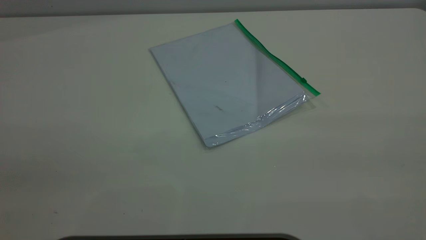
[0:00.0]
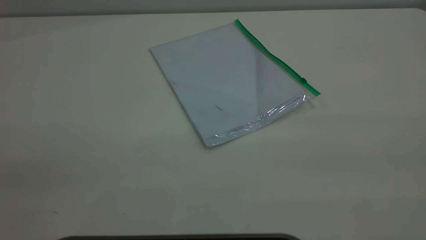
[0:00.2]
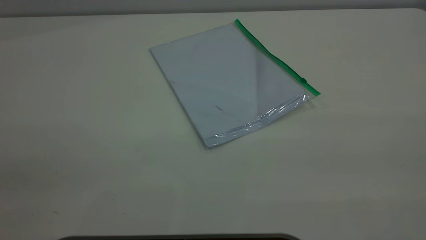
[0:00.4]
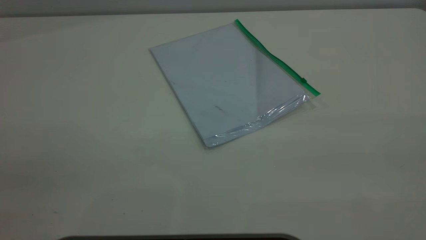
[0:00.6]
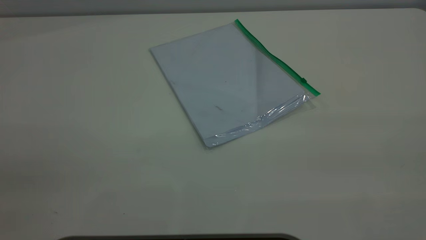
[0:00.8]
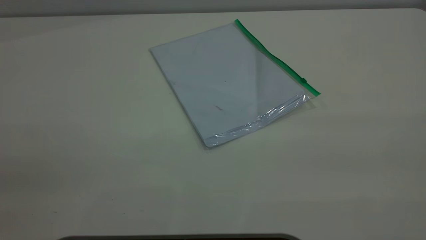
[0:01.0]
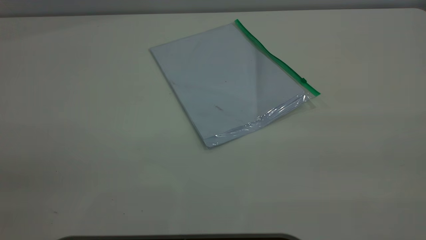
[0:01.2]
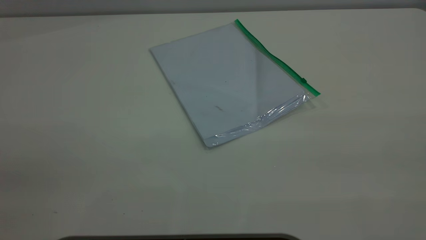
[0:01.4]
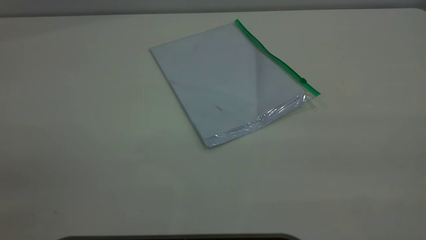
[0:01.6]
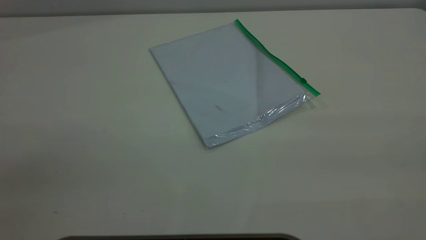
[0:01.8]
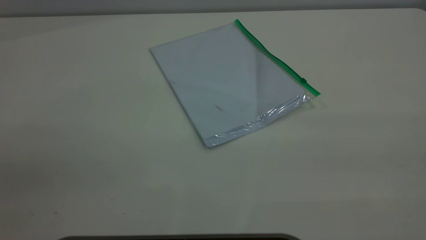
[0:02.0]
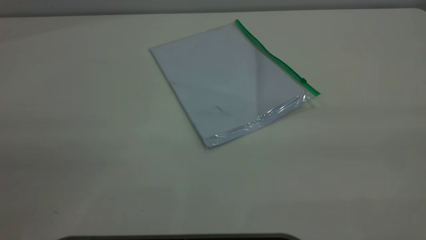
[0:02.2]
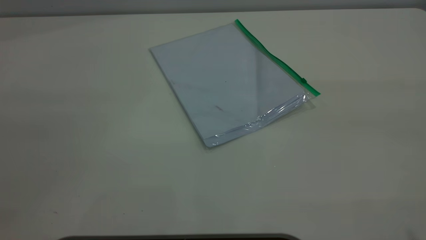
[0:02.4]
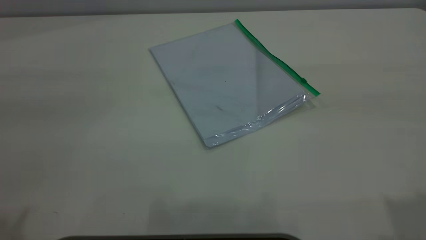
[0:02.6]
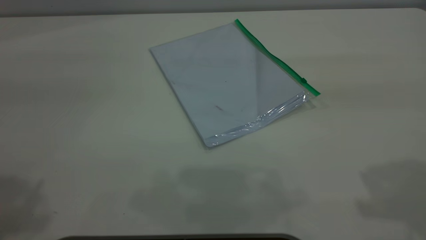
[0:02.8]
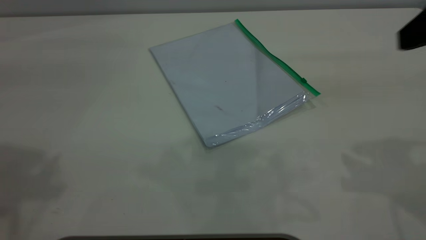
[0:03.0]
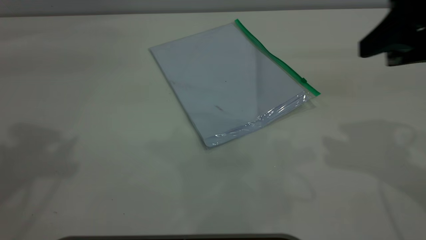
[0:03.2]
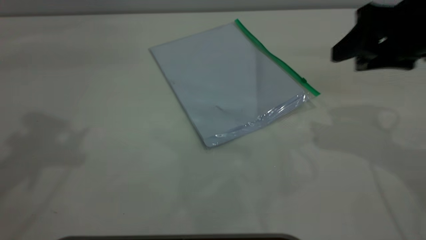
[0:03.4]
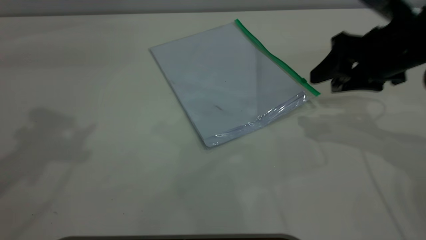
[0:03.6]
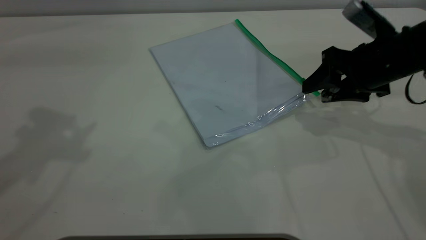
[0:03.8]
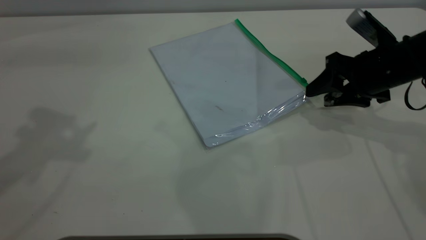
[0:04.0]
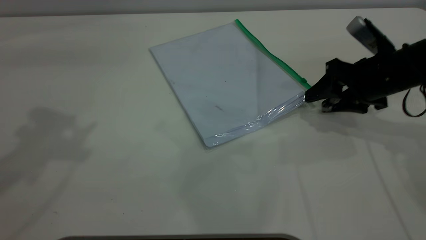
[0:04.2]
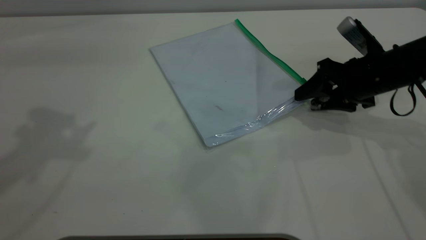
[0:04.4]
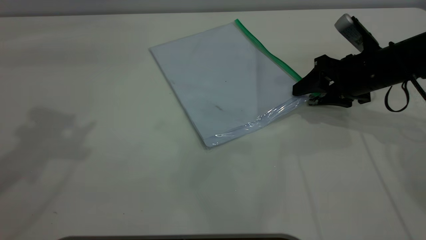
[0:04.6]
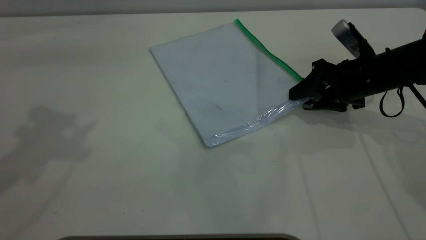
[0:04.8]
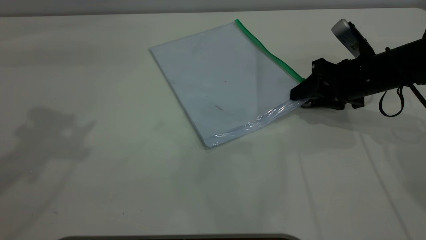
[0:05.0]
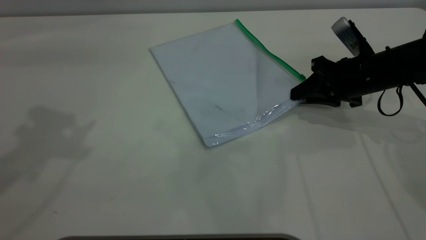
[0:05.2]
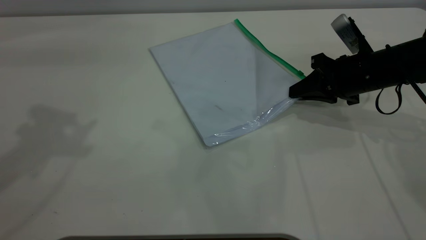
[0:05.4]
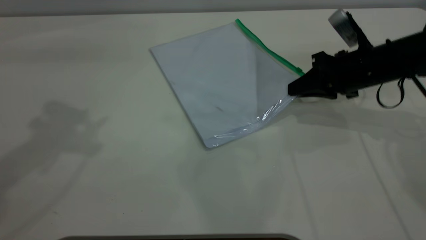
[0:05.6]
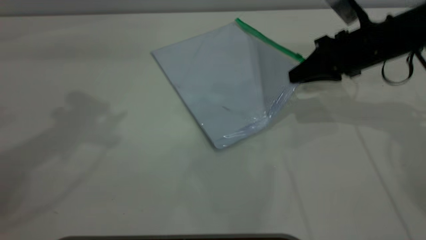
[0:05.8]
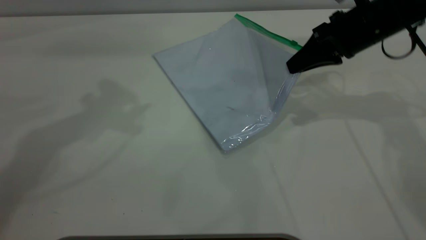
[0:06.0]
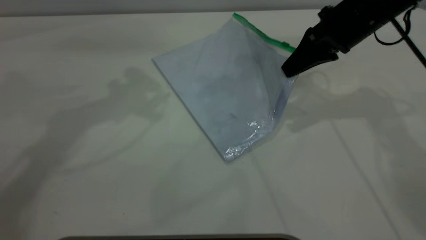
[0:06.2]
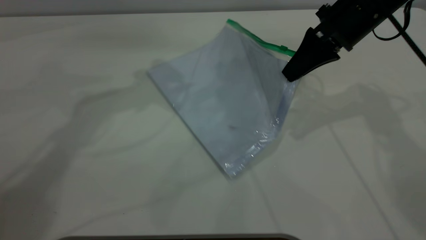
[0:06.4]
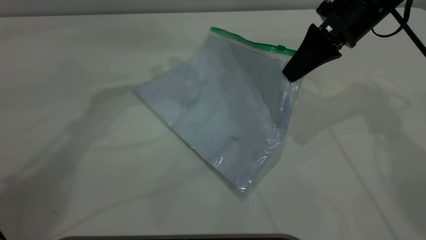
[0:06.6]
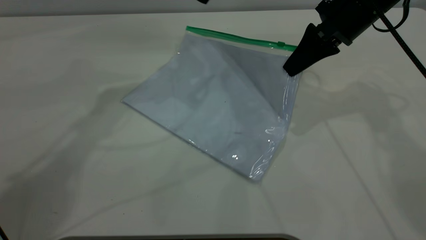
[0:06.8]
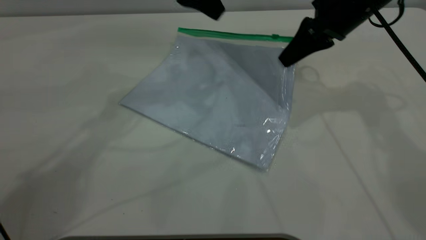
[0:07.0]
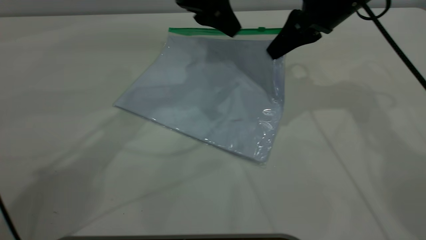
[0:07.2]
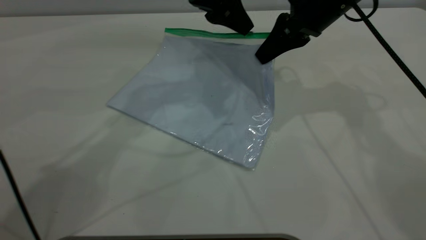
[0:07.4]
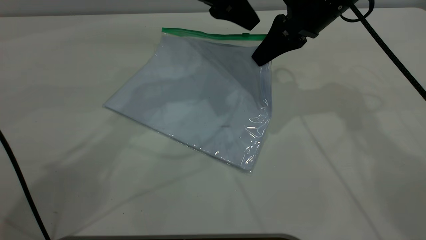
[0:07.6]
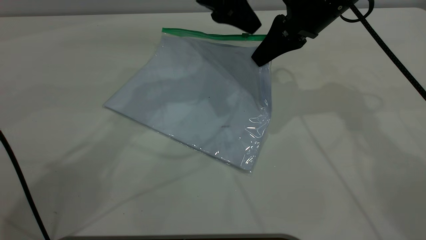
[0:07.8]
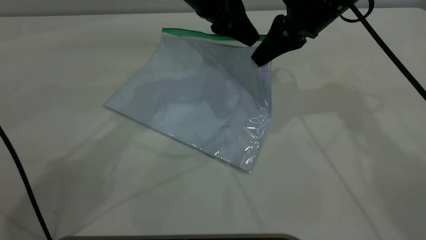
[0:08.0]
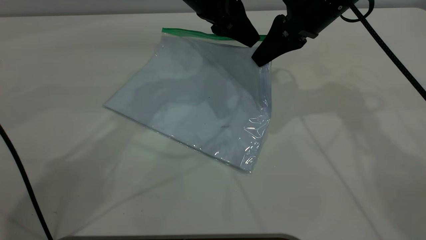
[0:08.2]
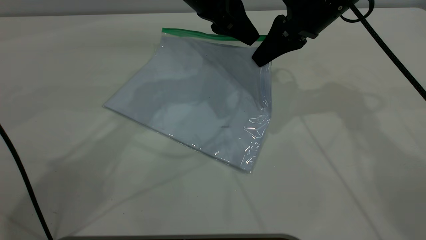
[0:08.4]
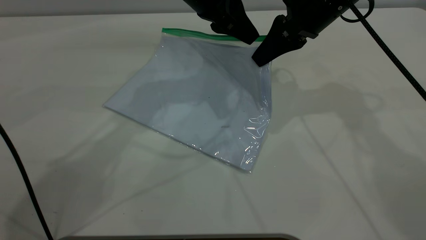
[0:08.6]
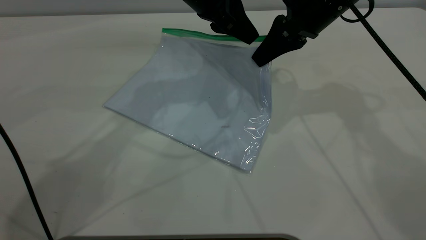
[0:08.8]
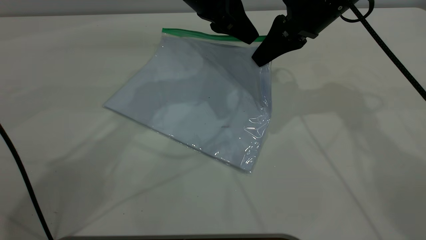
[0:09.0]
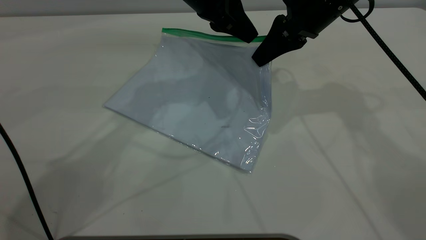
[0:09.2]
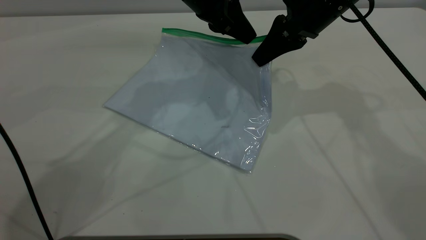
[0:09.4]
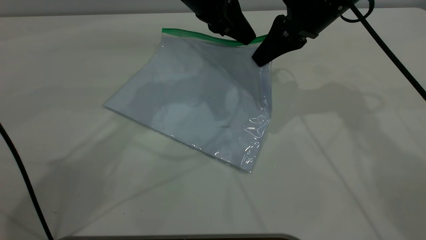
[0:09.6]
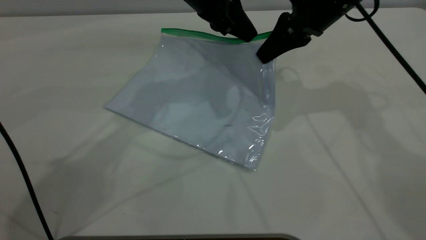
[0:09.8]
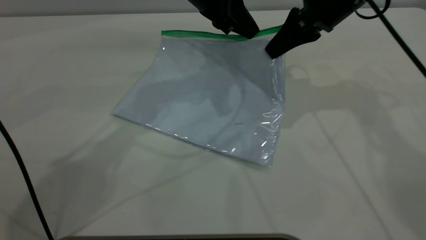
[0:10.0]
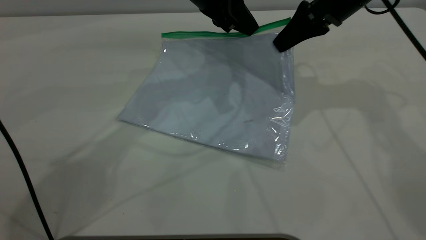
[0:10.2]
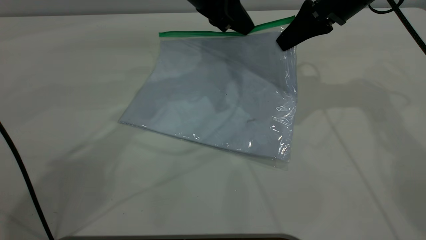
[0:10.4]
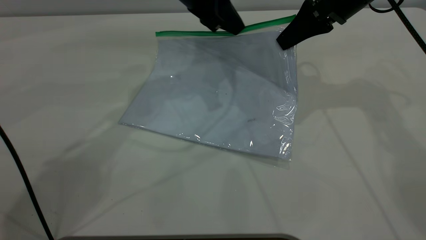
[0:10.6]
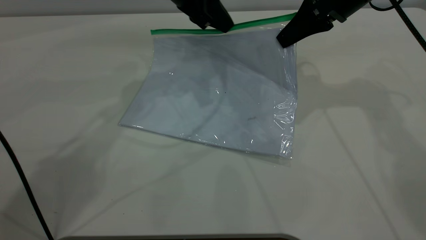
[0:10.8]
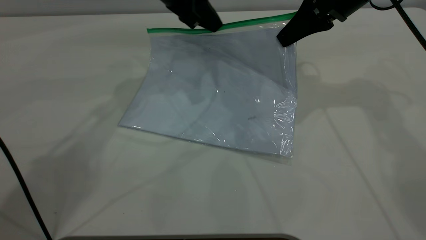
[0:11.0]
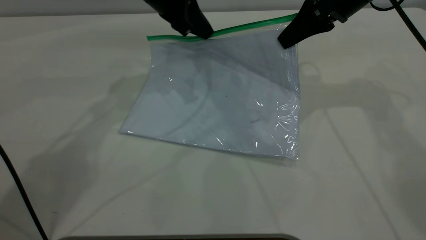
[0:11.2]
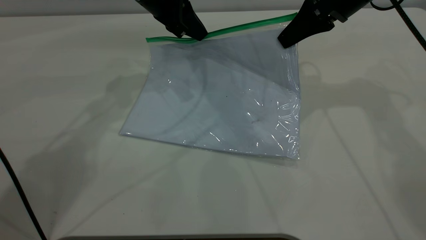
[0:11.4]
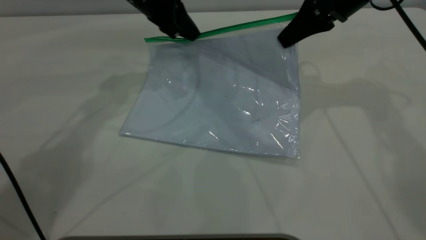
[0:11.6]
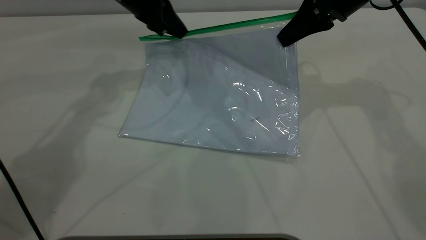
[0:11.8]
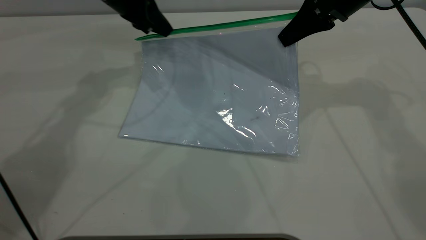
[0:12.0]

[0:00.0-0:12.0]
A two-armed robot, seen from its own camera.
Step, 0:00.0 to 0:06.8: Pick up the transparent plastic bag with the right gripper.
0:00.0 to 0:01.6: Both grippers stay put.
0:01.6 to 0:03.0: The right gripper goes about 25 cm forward.
0:03.0 to 0:04.4: The right gripper moves downward and forward, some 25 cm.
0:04.4 to 0:06.0: The left gripper travels to the right and forward by approximately 10 cm. Meanwhile the right gripper travels upward by roughly 5 cm, and closes.
0:06.0 to 0:07.6: The left gripper heads to the right and downward, covering some 20 cm, while the right gripper is displaced to the left by some 5 cm.
0:07.6 to 0:09.0: The left gripper closes its fingers.
0:09.0 to 0:10.4: The left gripper closes its fingers.
0:10.4 to 0:12.0: The left gripper heads to the left, covering about 15 cm.

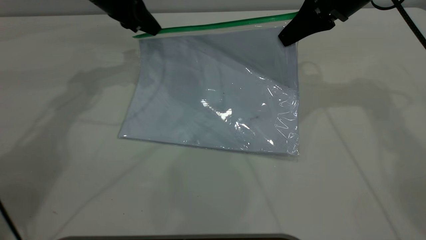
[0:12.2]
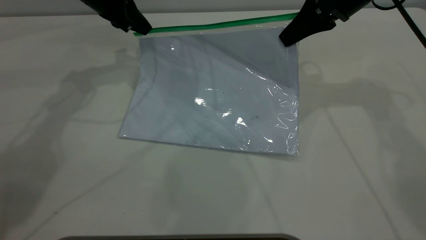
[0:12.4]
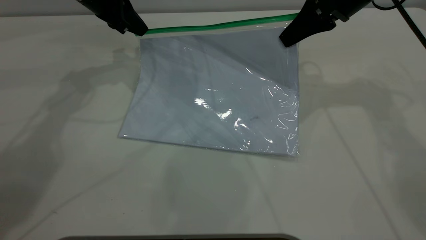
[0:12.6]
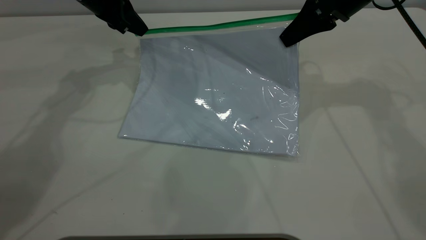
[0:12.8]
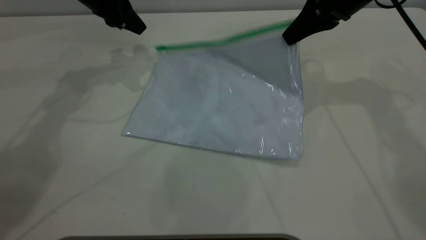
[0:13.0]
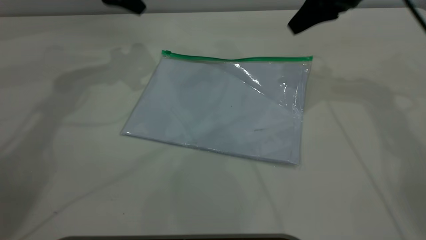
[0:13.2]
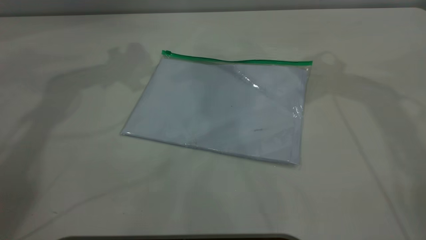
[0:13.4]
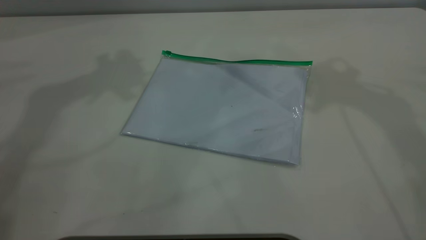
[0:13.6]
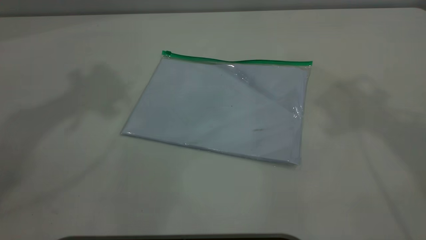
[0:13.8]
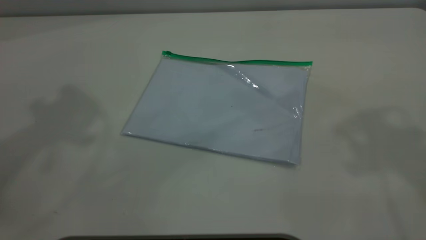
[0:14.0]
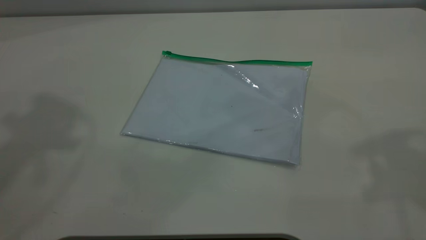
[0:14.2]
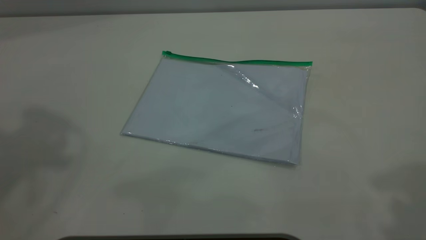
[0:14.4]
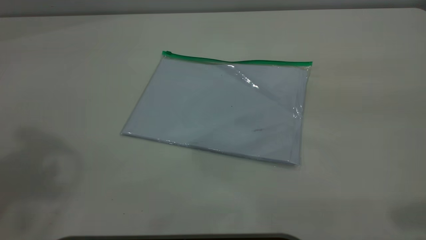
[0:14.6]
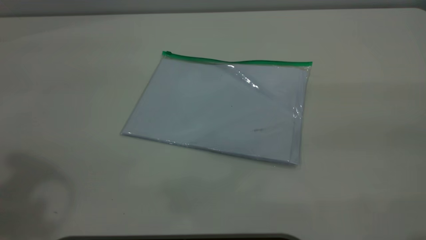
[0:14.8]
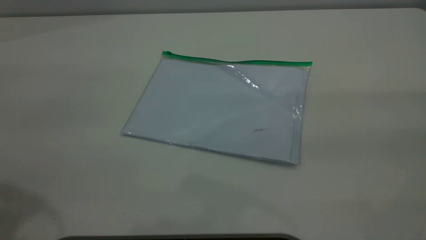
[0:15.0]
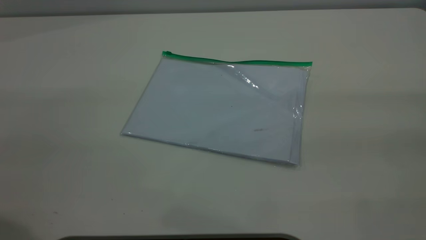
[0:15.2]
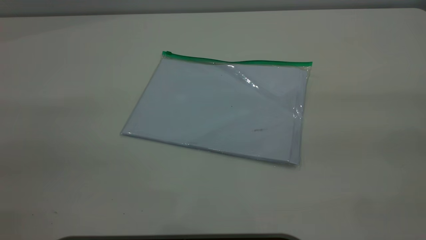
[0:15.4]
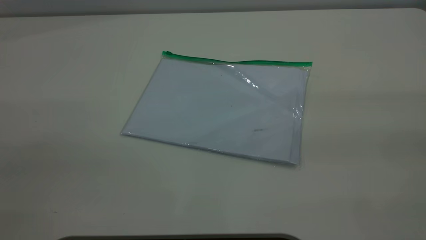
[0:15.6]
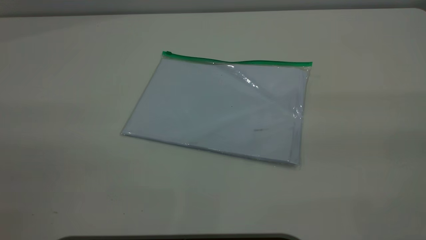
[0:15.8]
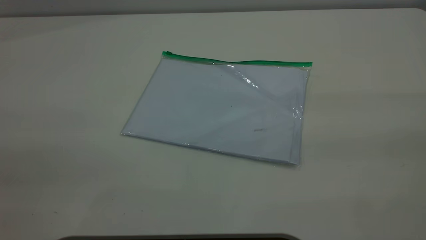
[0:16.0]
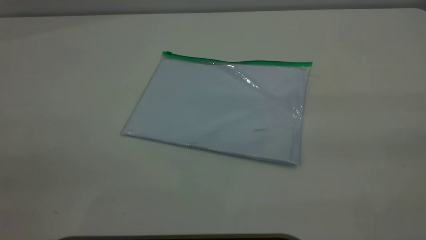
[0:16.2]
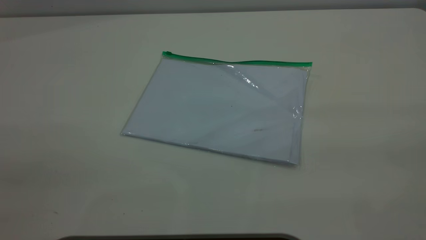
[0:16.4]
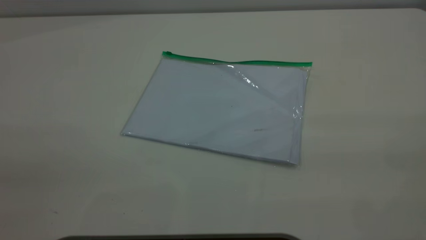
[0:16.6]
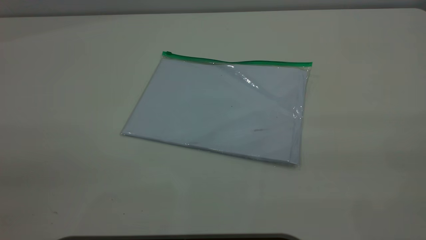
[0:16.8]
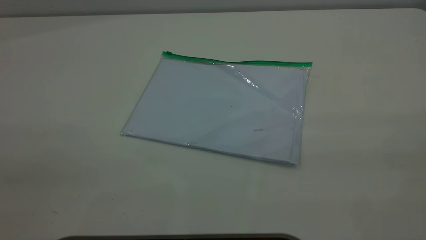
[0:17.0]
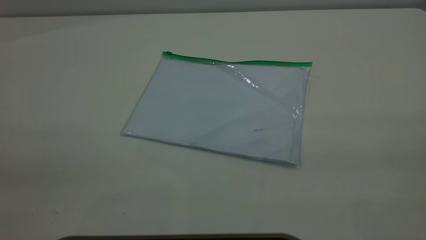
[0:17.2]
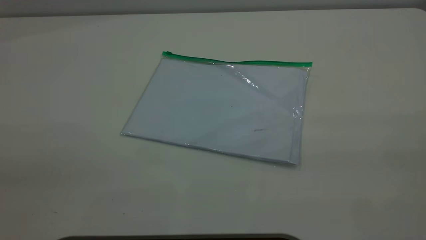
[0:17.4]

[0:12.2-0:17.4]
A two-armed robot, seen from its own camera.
Step, 0:13.0 to 0:13.8: Place the transparent plastic bag.
0:12.2 to 0:14.0: The two grippers go approximately 40 cm upward and backward. The left gripper opens up, while the right gripper opens its fingers.
